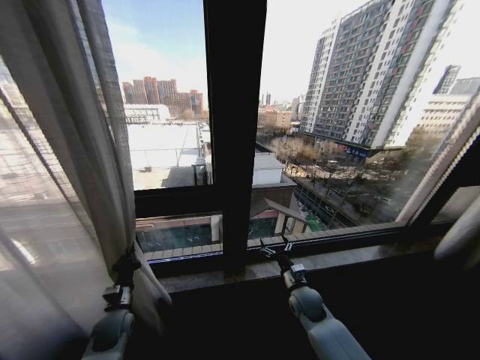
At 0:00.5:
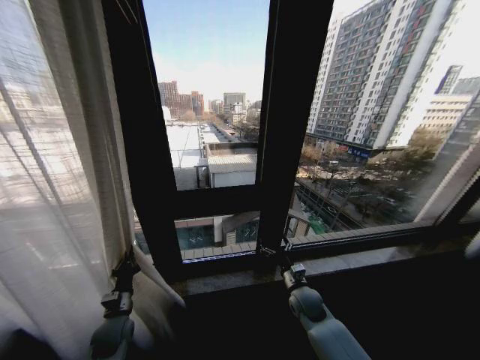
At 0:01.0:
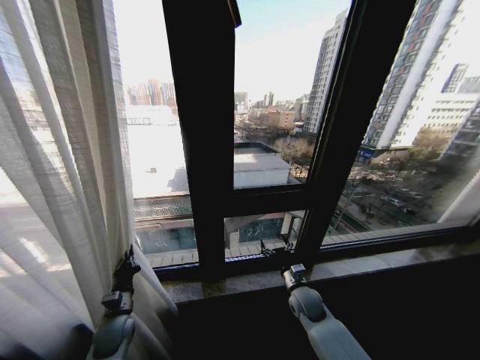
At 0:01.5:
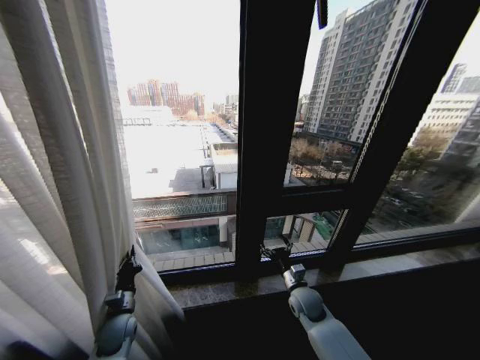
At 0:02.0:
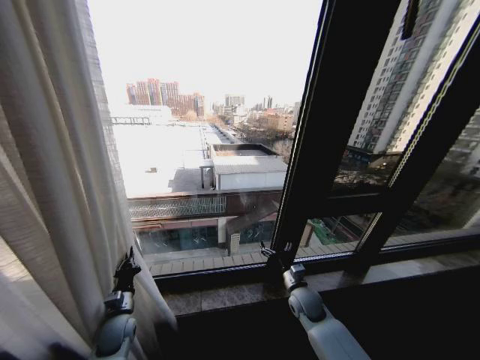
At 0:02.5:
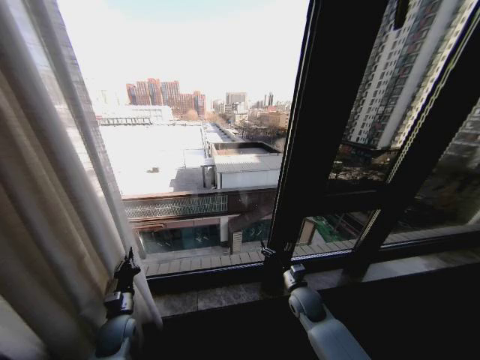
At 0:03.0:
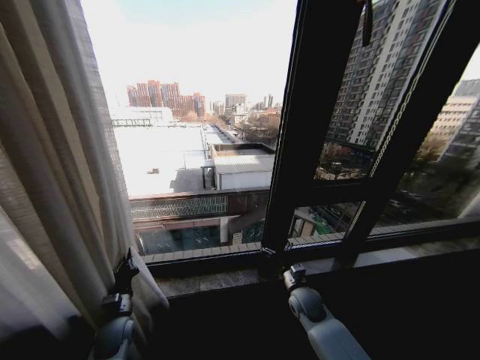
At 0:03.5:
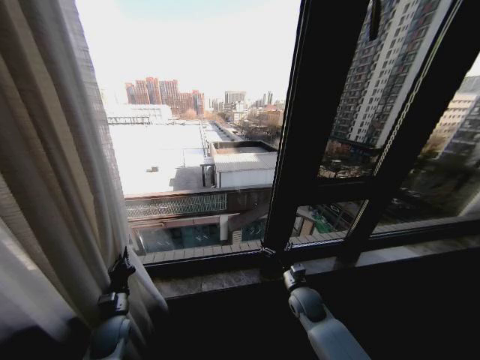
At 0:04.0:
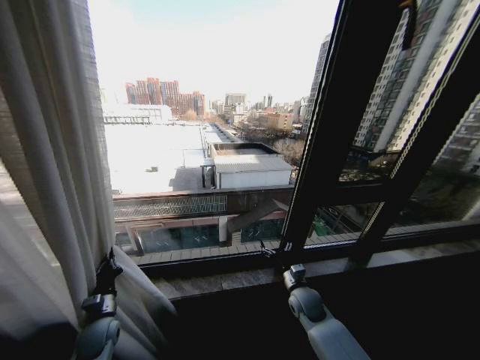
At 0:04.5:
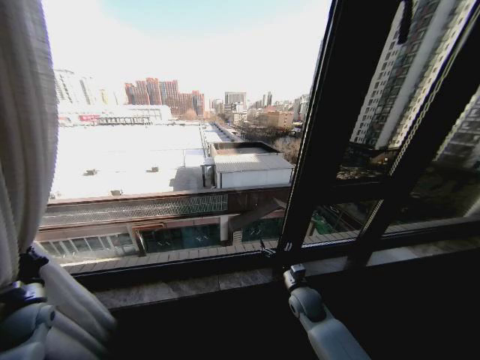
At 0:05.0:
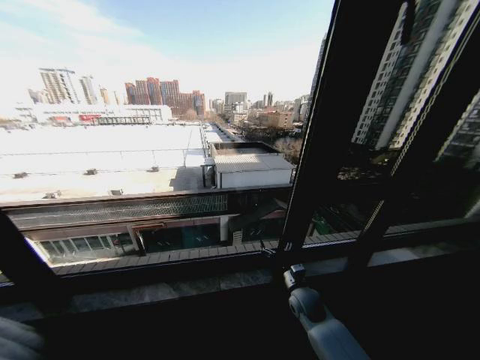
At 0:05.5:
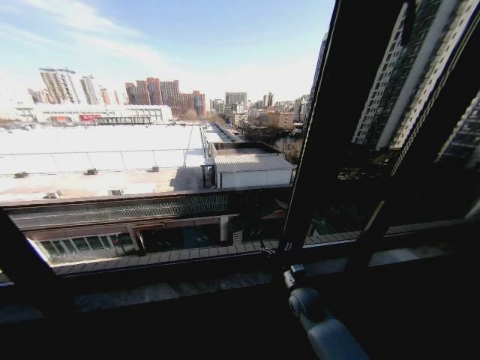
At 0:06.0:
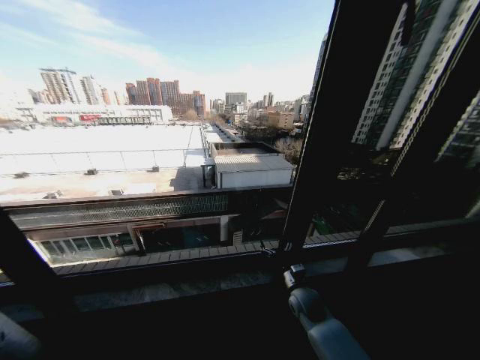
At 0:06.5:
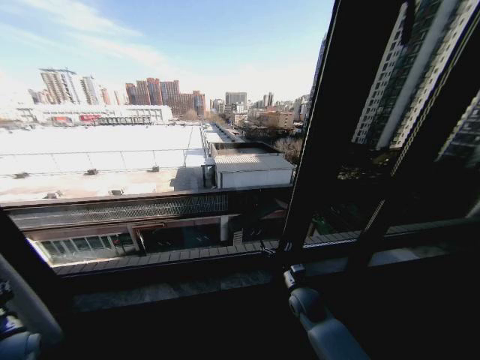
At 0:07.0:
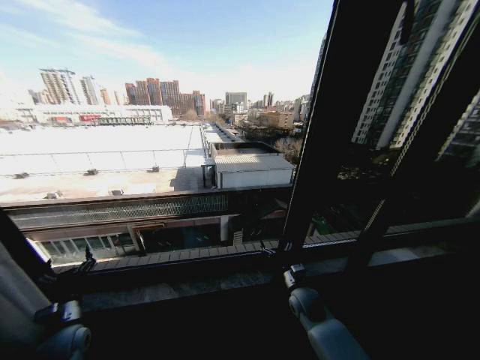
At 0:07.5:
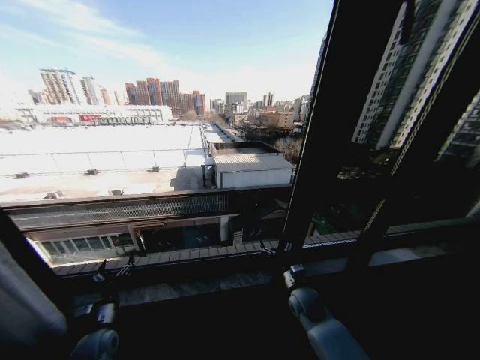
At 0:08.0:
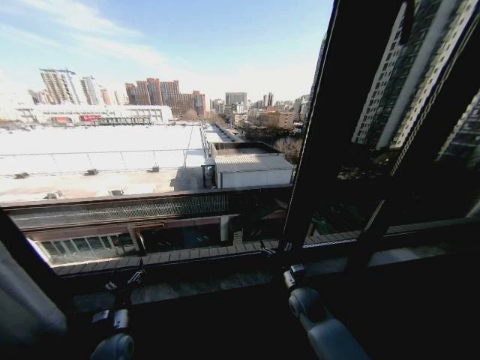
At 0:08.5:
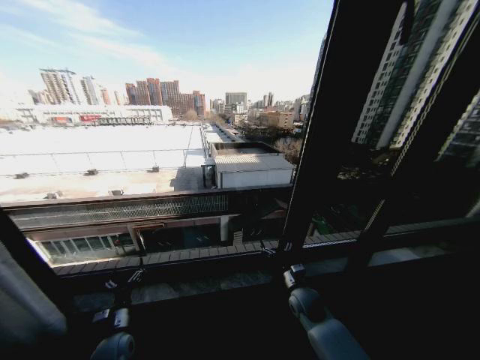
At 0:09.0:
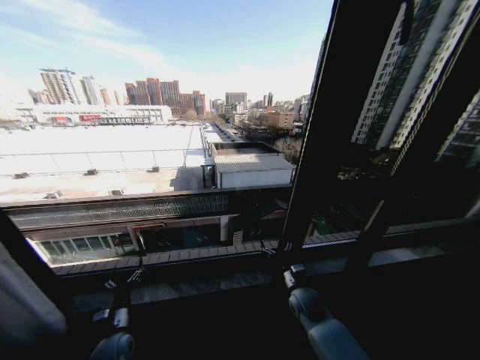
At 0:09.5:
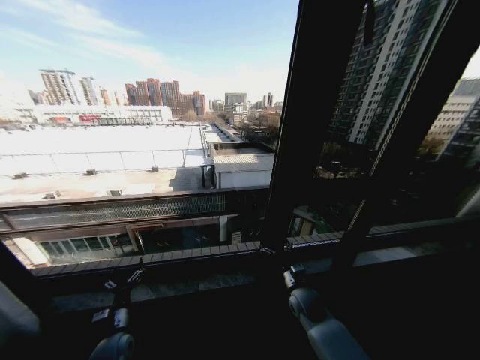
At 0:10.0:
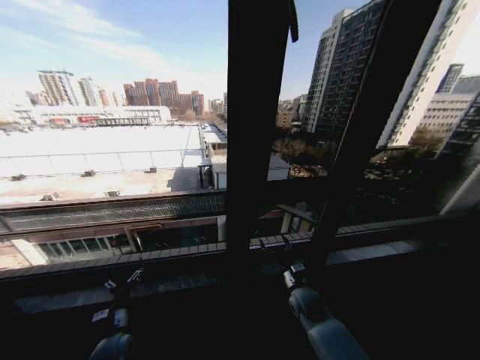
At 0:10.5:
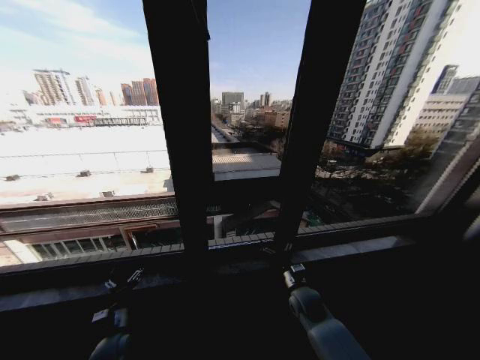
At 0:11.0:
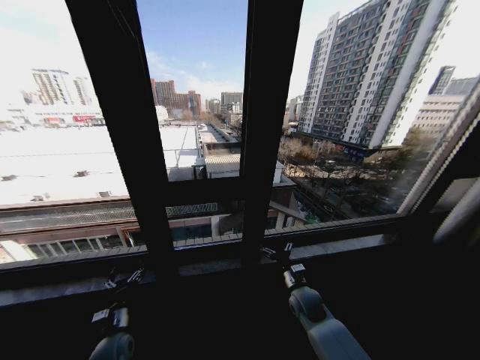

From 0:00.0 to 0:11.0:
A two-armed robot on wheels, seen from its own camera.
Task of the whole recording: Open the curtains by pulling them apart, changing their state from closed to fully open.
From 0:03.5 to 0:05.5: The left gripper heads to the left, covering about 35 cm.
From 0:05.5 to 0:07.5: The left gripper shifts roughly 35 cm to the right, and opens.
From 0:07.5 to 0:09.0: The left gripper changes place by approximately 5 cm.

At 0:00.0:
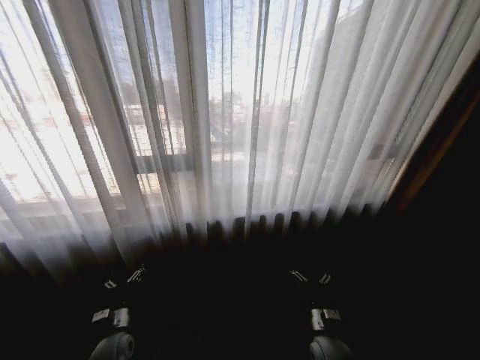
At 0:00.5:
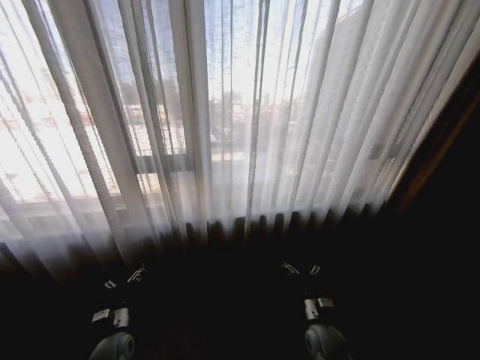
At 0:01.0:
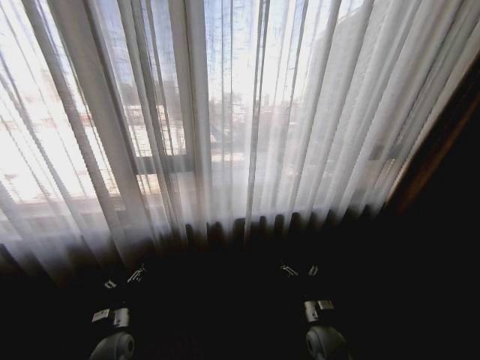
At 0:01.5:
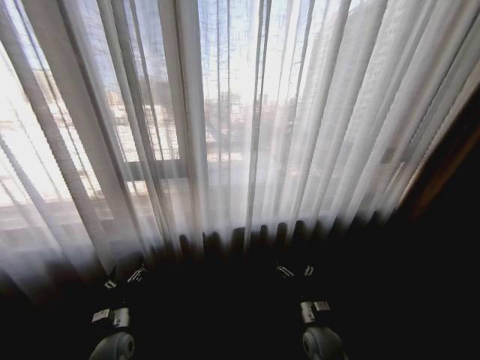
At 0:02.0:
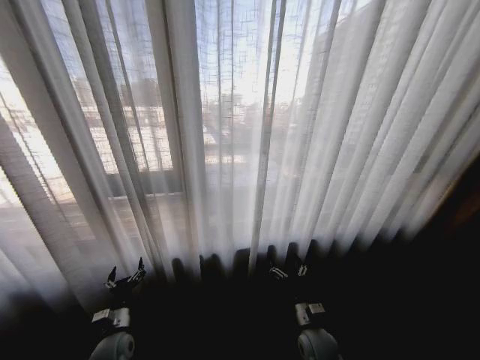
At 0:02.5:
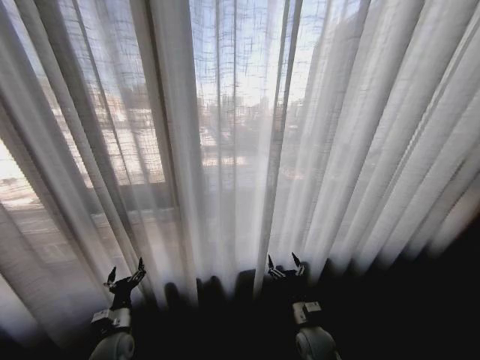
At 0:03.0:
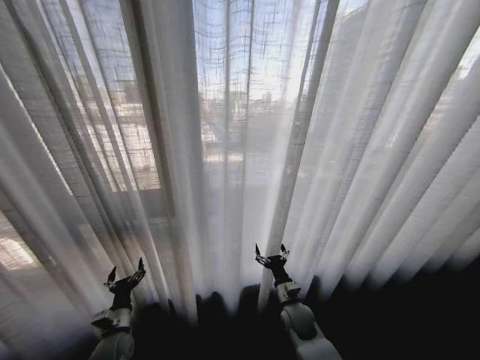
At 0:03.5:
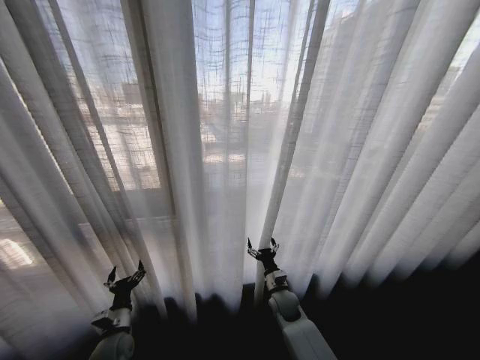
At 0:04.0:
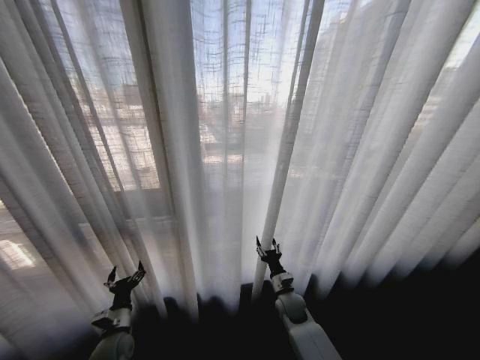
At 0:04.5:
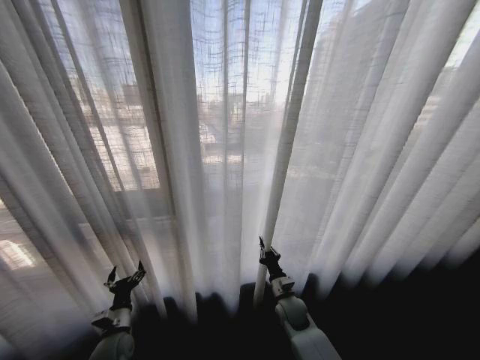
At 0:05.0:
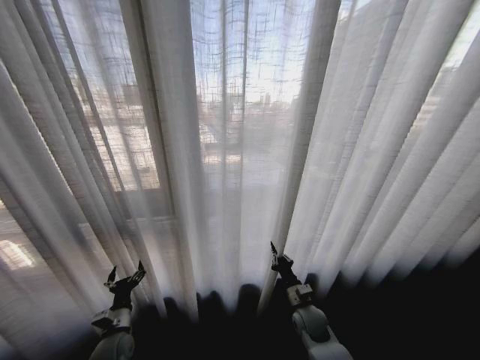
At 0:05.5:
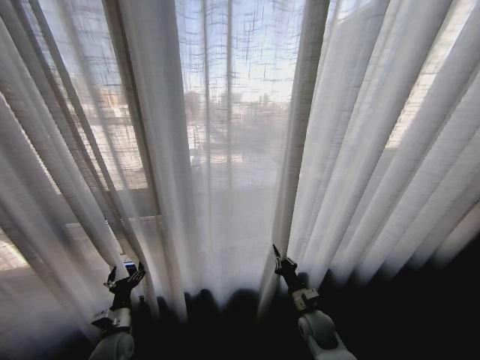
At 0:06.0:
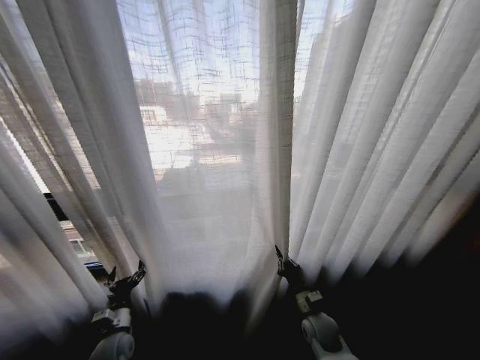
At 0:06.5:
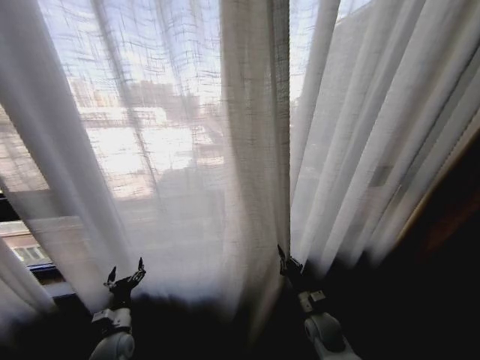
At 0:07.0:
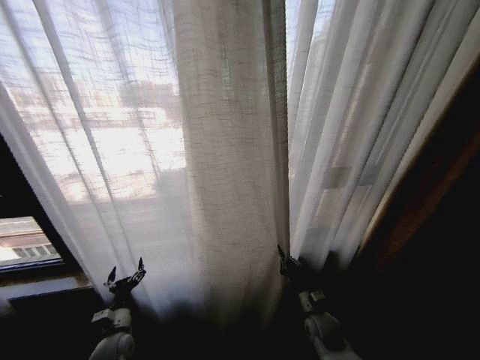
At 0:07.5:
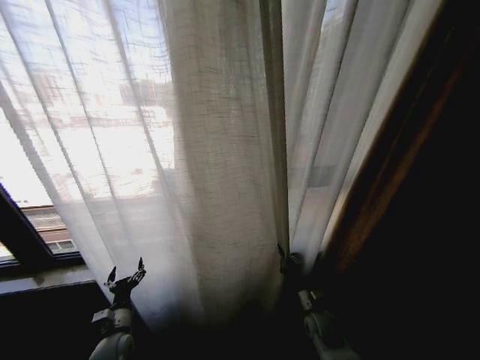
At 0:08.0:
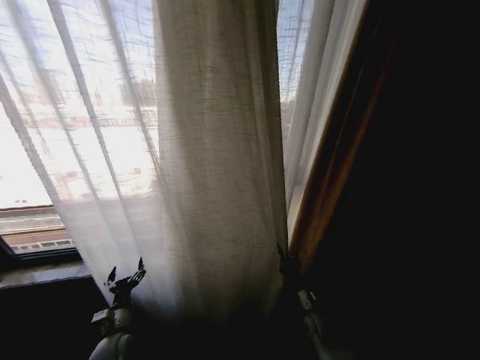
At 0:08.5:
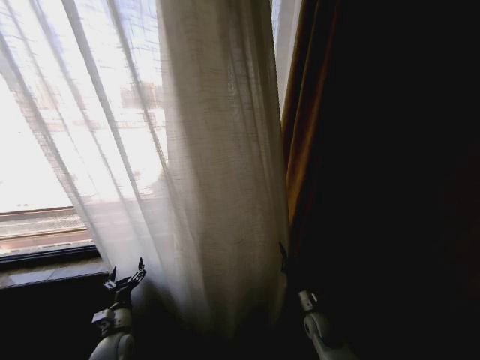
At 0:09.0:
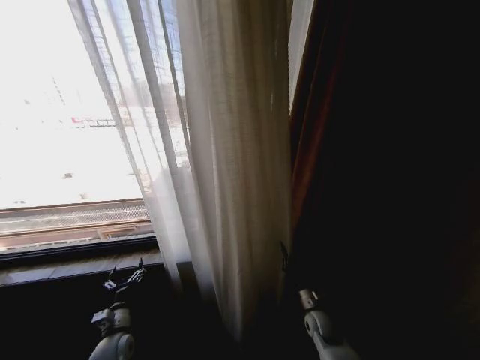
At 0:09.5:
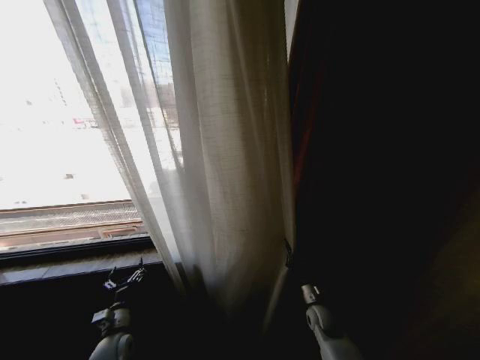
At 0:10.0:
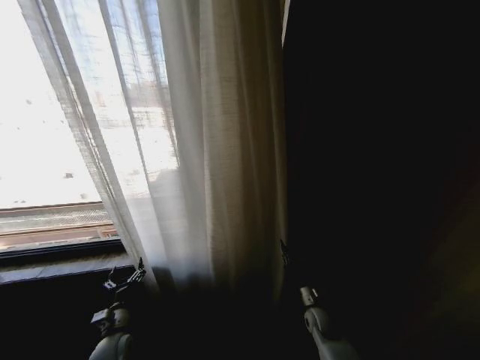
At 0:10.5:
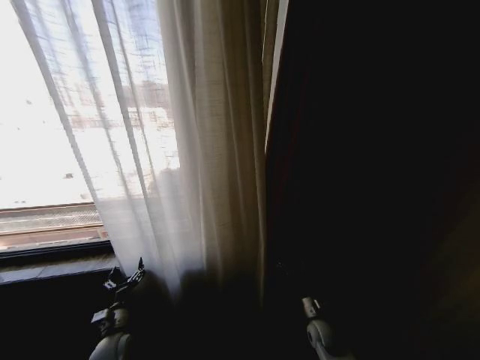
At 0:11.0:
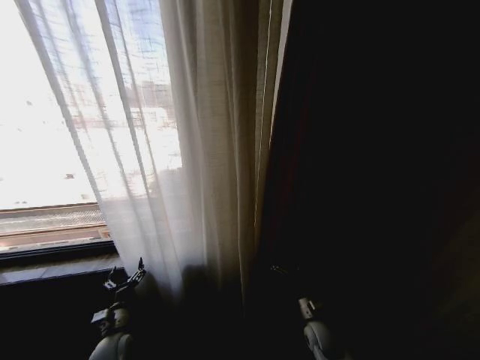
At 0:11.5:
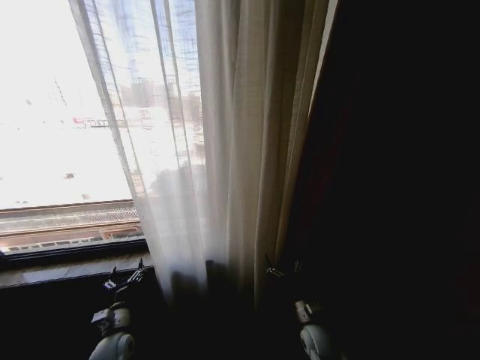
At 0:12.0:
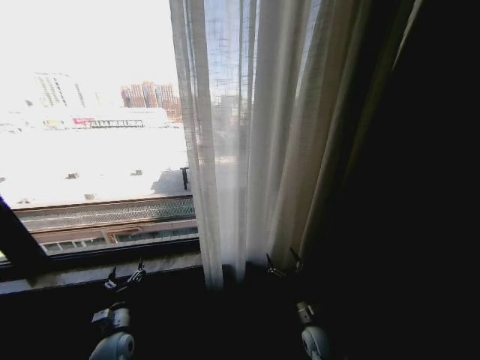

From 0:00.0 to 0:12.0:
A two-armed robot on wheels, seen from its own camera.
Task of the whole recording: Open the curtains by pulling them apart, changing their state from closed to fully open.
From 0:02.0 to 0:04.0: The right gripper heads forward, covering approximately 10 cm.
From 0:04.0 to 0:06.0: The right gripper moves backward and to the right, approximately 10 cm, and closes its fingers.
From 0:10.0 to 0:12.0: The right gripper moves backward, approximately 5 cm, and opens its fingers.

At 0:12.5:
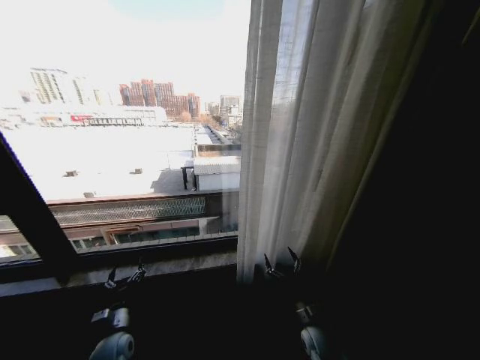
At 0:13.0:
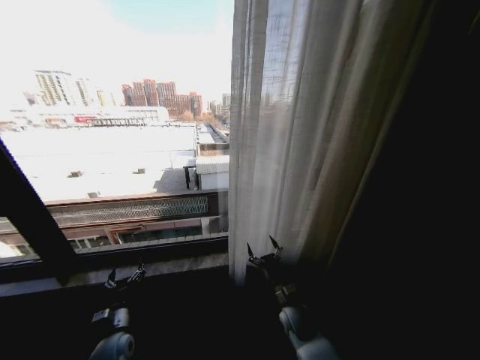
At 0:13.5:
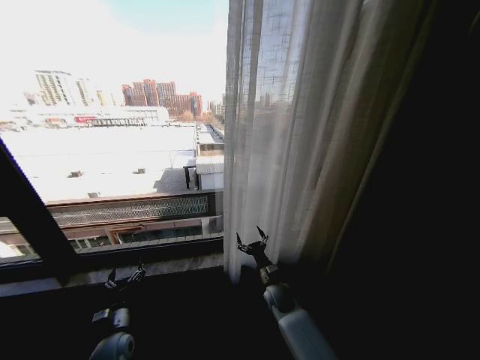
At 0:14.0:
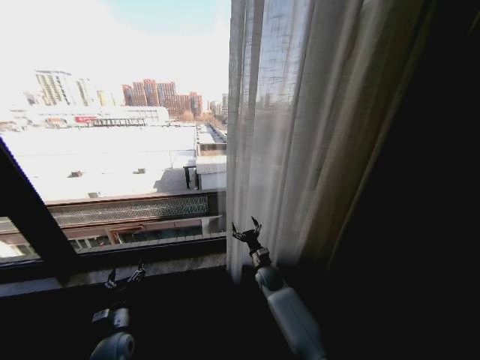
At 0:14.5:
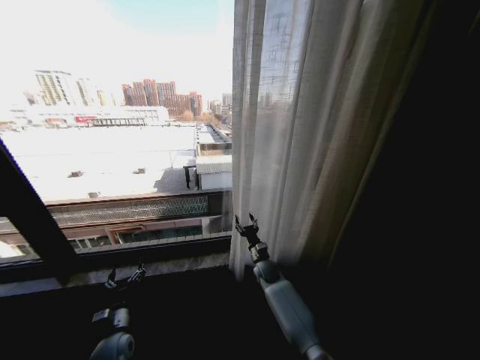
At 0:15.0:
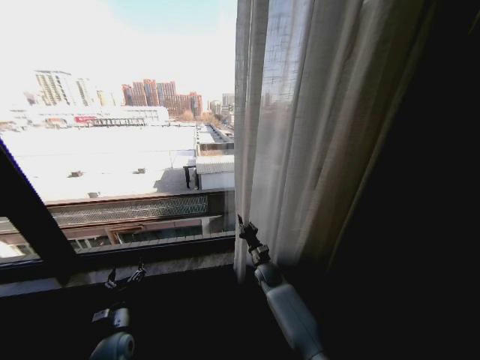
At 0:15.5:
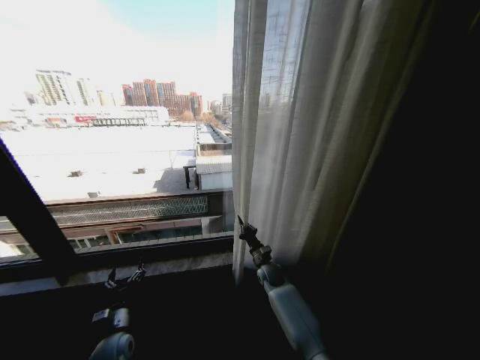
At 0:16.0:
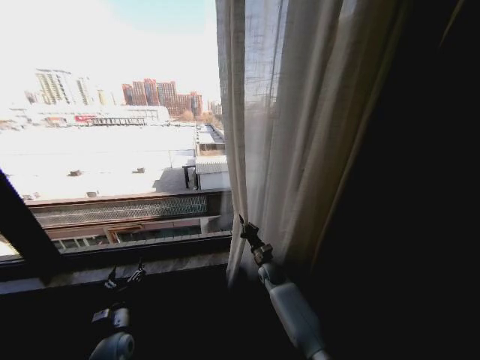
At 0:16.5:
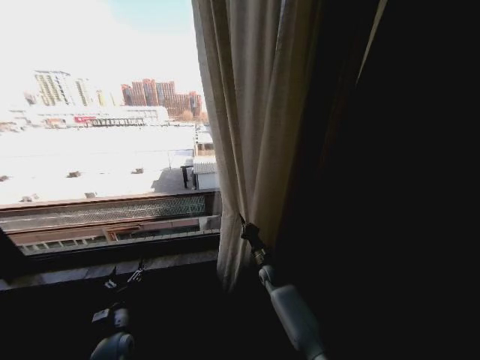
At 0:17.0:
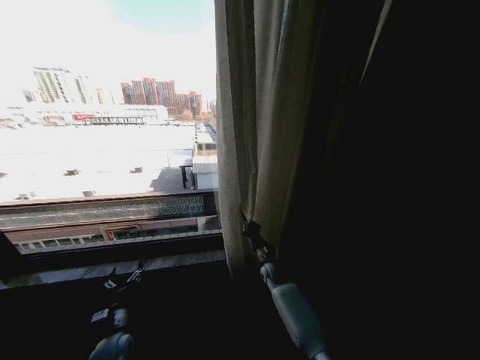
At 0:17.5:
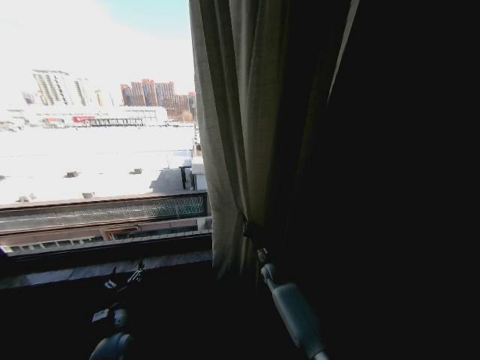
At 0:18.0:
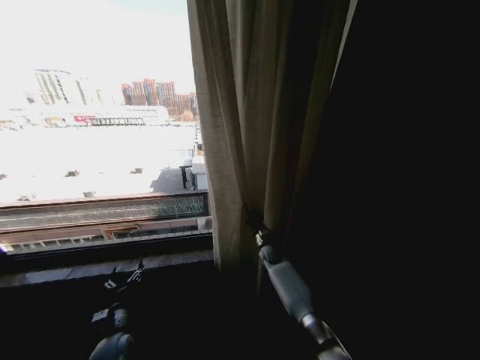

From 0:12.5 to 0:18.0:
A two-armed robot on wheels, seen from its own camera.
Task of the whole recording: Open the curtains by pulling them apart, changing their state from closed to fully open.
From 0:12.5 to 0:14.5: The right gripper heads forward and to the left, covering some 25 cm.
From 0:14.5 to 0:16.0: The right gripper closes.
From 0:16.0 to 0:18.0: The right gripper moves forward, approximately 5 cm.
